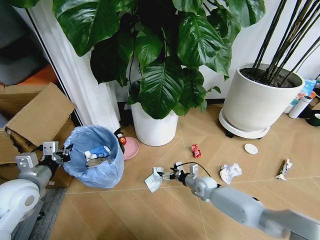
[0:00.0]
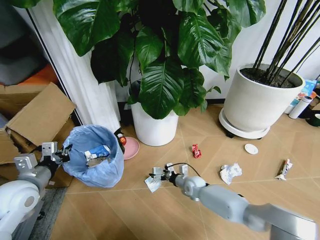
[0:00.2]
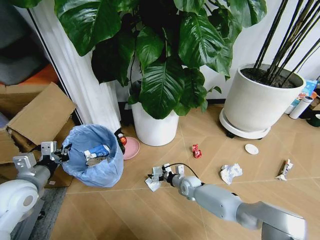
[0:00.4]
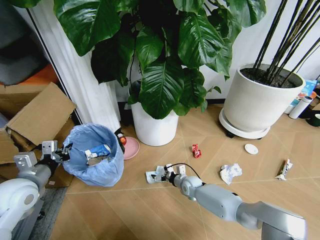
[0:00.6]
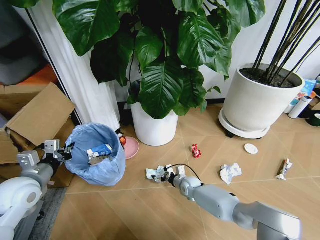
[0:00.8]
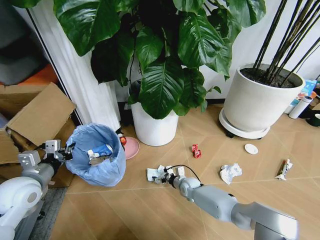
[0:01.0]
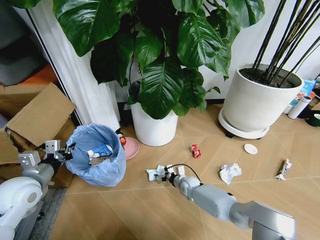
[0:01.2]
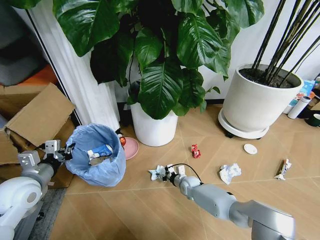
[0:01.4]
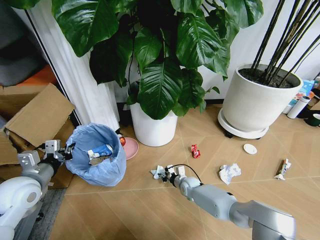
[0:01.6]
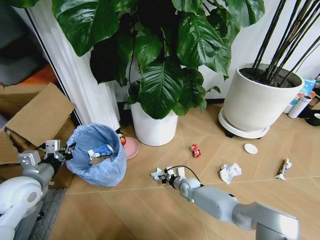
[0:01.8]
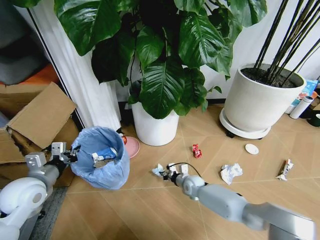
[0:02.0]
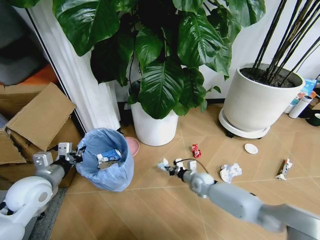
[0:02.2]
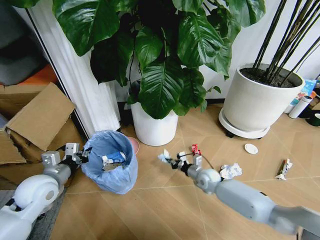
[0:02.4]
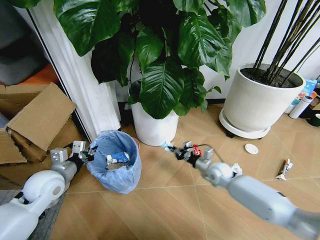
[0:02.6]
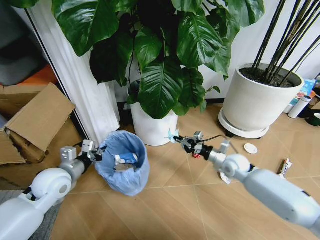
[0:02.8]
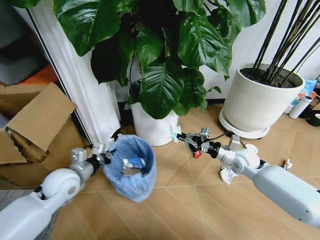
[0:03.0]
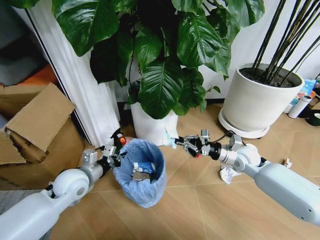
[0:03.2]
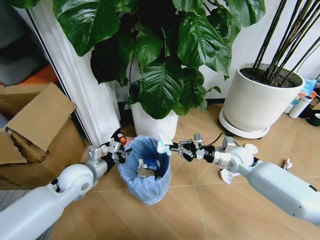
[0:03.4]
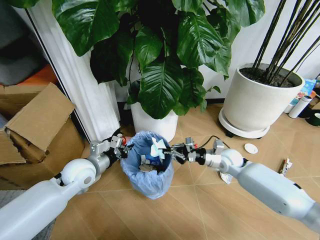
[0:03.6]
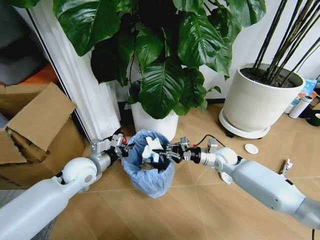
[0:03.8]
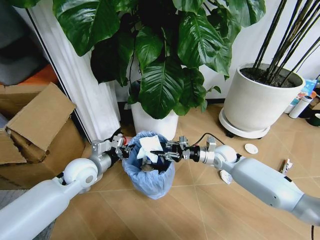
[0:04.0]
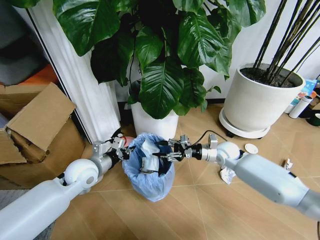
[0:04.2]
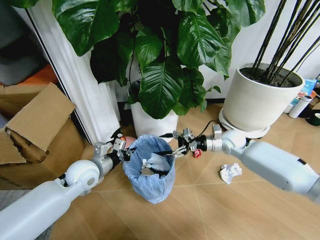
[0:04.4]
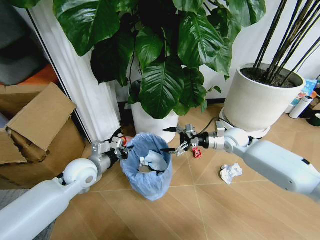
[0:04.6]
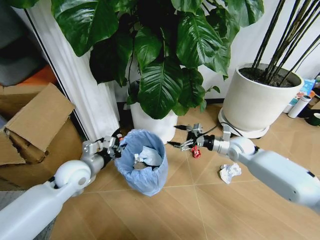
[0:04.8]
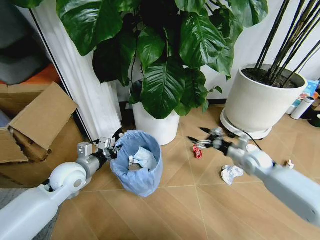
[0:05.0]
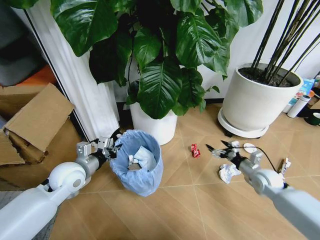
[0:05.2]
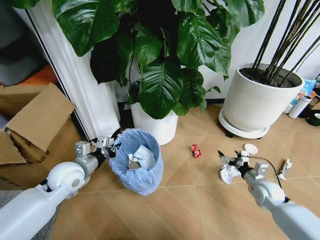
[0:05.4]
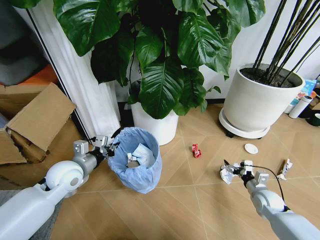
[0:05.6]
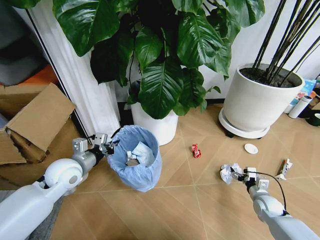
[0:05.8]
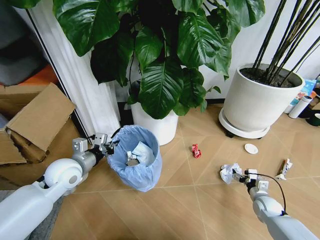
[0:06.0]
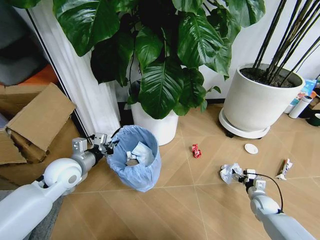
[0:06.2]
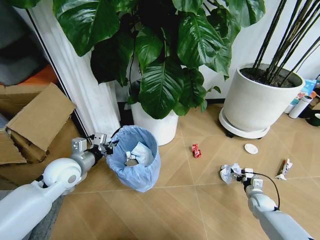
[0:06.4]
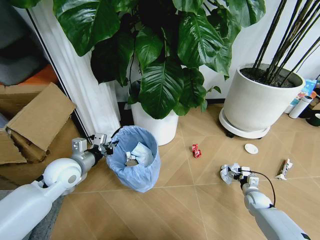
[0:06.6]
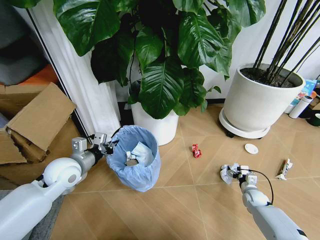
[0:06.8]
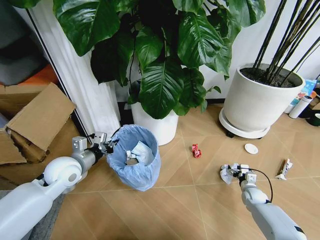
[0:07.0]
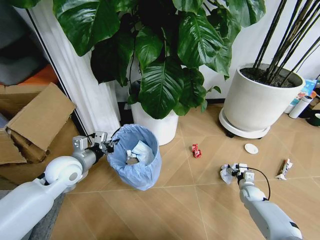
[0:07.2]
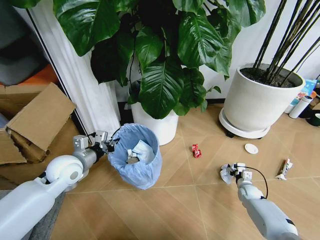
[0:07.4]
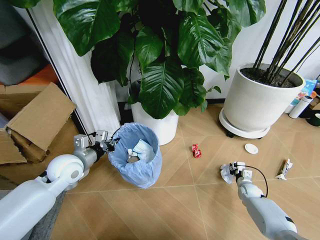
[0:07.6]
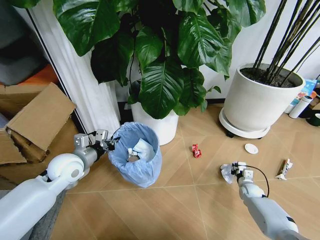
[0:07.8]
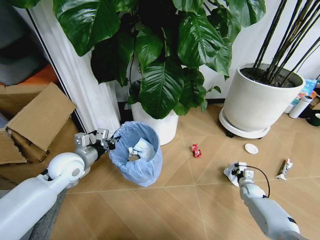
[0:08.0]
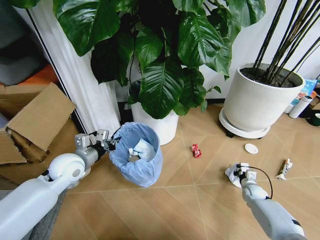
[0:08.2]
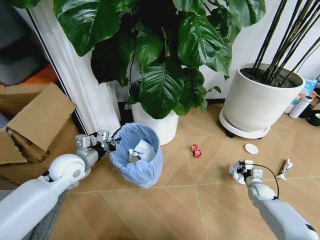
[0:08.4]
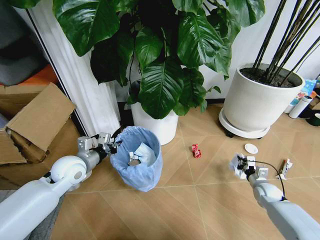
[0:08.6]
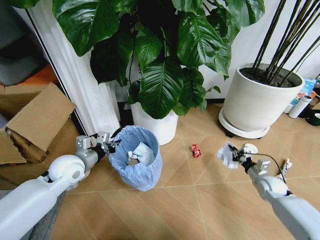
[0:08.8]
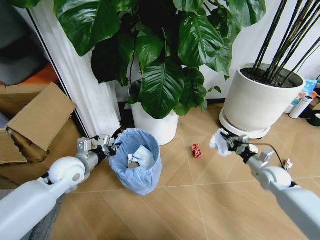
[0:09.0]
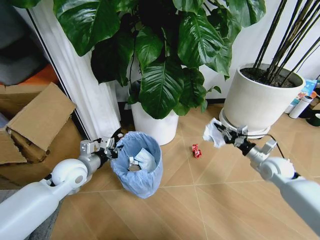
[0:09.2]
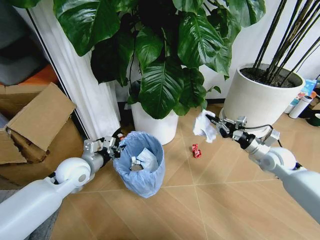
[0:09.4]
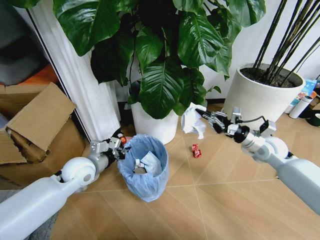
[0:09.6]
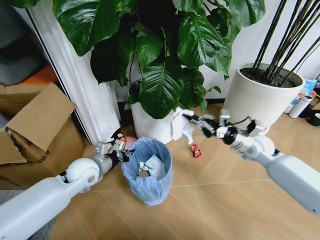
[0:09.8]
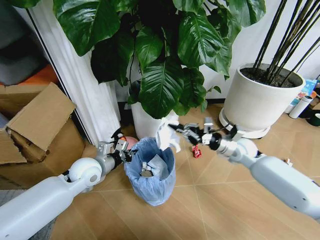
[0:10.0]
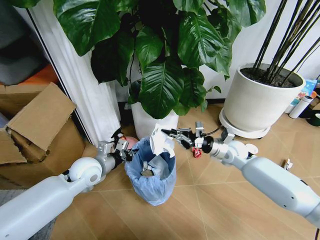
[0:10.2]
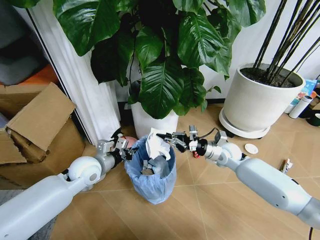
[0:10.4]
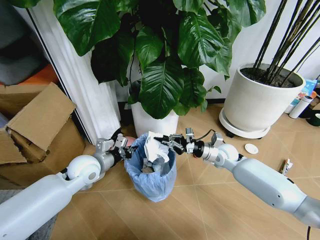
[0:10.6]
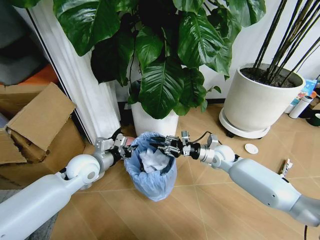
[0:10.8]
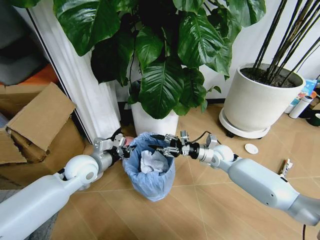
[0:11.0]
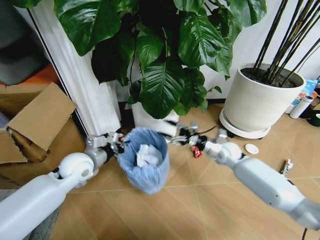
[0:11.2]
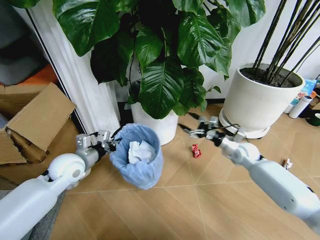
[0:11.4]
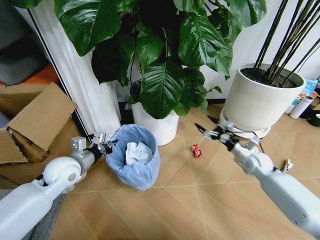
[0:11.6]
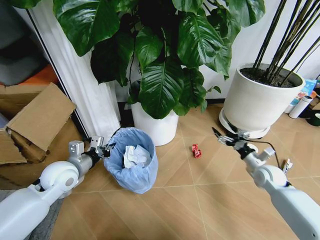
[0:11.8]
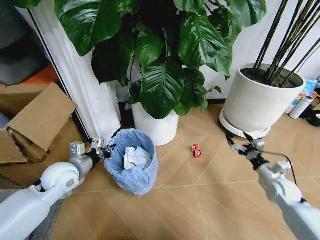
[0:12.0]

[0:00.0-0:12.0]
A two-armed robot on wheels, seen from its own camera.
Task of the whole recording: Pick up the trash bin and place the garbage on the floor into it.
0:00.0 to 0:01.6: The right gripper shifts approximately 5 cm to the left, and closes its fingers.
0:01.6 to 0:03.0: The right gripper moves upward and to the right, approximately 30 cm; the left gripper shifts roughly 10 cm to the right.
0:03.0 to 0:04.4: The left gripper heads to the right, covering roughly 5 cm. The right gripper heads forward, covering about 5 cm, and opens its fingers.
0:04.4 to 0:06.0: The right gripper goes roughly 35 cm downward, backward and to the right; the left gripper changes place by approximately 5 cm.
0:06.0 to 0:07.6: The right gripper travels forward by roughly 10 cm, and closes up.
0:07.6 to 0:09.0: The right gripper goes roughly 15 cm upward, and closes its fingers.
0:09.0 to 0:10.4: The right gripper goes approximately 20 cm to the left and forward. The left gripper ends up about 5 cm from where it was.
0:10.4 to 0:12.0: The left gripper is displaced to the left by approximately 5 cm, while the right gripper heads to the right and backward, covering approximately 25 cm, and opens up.

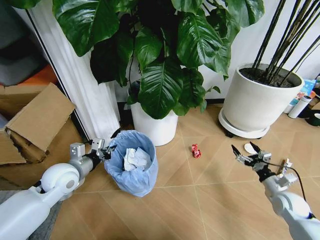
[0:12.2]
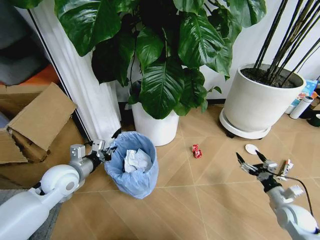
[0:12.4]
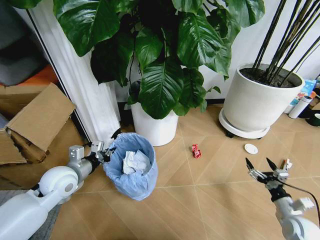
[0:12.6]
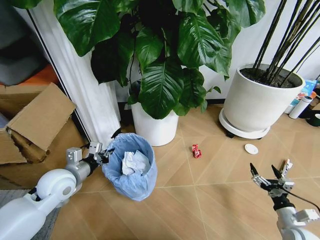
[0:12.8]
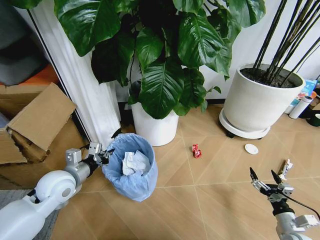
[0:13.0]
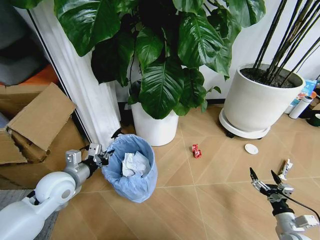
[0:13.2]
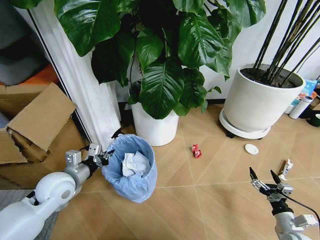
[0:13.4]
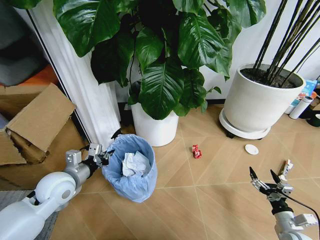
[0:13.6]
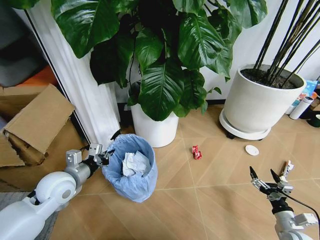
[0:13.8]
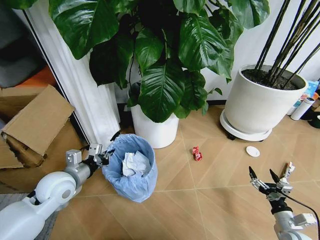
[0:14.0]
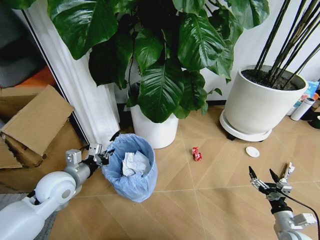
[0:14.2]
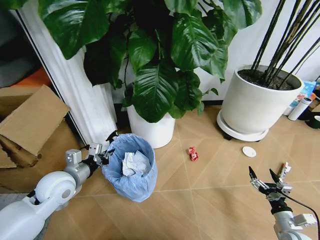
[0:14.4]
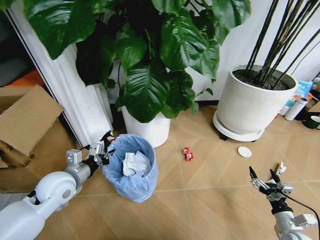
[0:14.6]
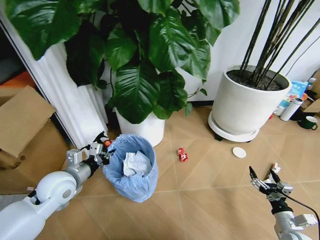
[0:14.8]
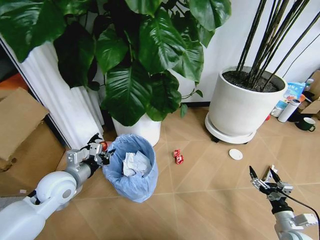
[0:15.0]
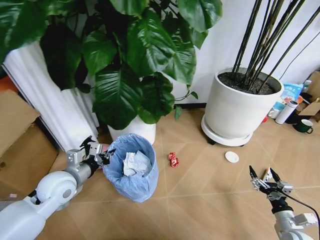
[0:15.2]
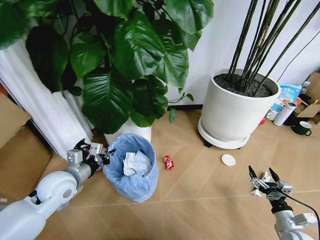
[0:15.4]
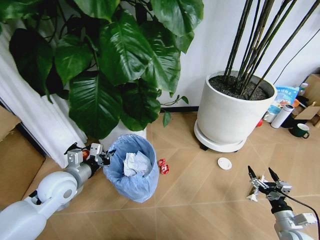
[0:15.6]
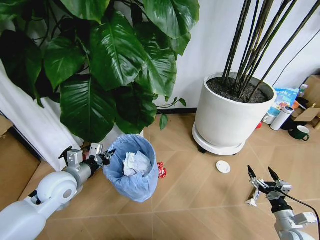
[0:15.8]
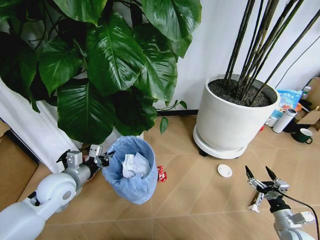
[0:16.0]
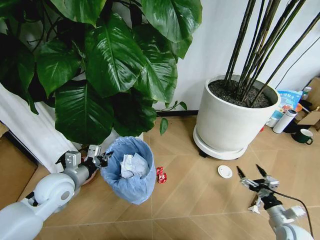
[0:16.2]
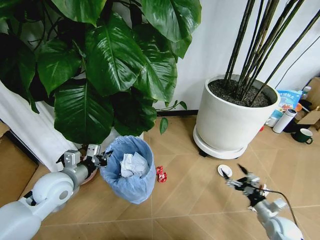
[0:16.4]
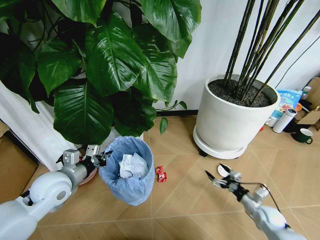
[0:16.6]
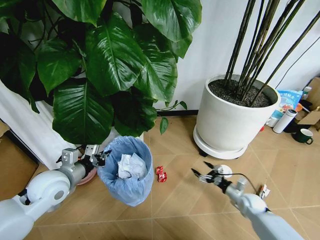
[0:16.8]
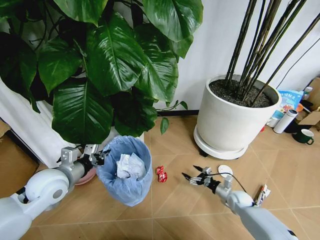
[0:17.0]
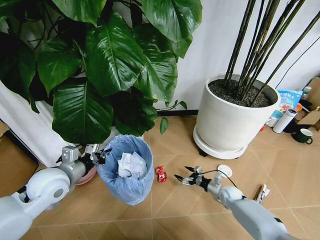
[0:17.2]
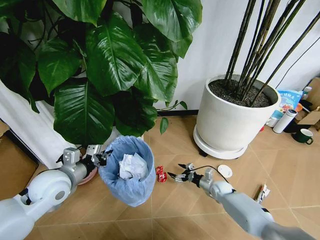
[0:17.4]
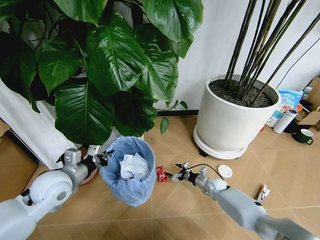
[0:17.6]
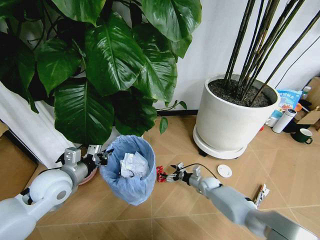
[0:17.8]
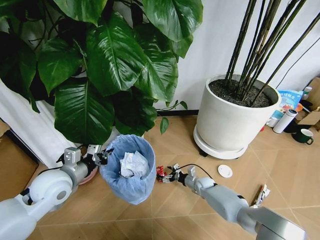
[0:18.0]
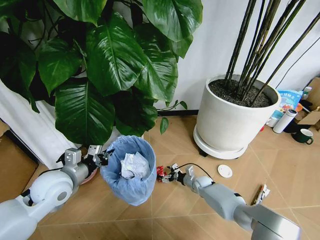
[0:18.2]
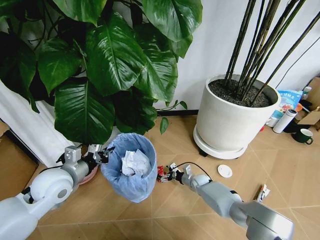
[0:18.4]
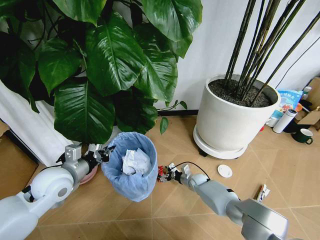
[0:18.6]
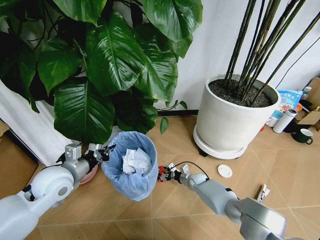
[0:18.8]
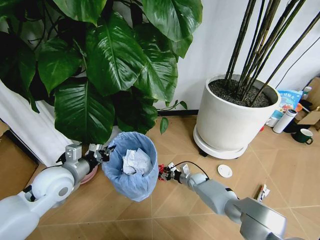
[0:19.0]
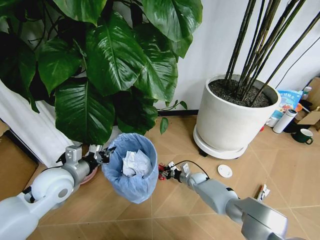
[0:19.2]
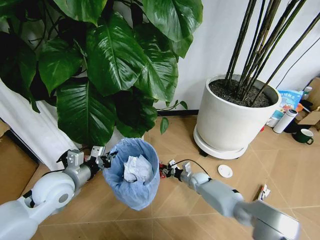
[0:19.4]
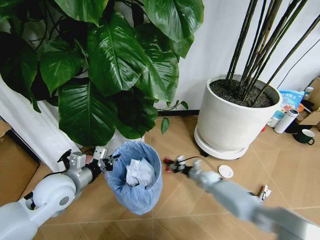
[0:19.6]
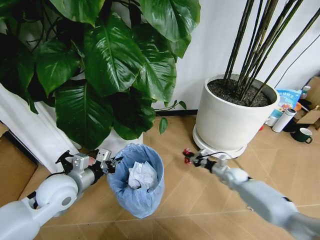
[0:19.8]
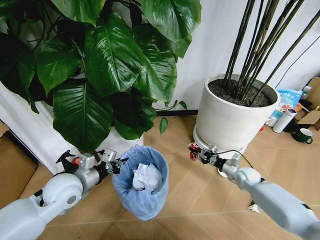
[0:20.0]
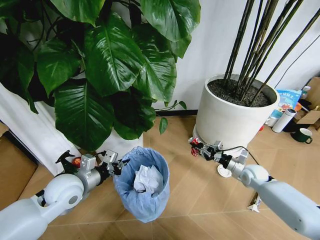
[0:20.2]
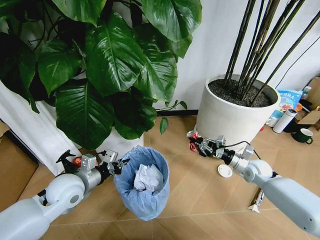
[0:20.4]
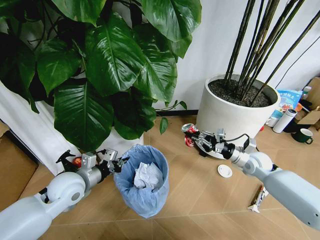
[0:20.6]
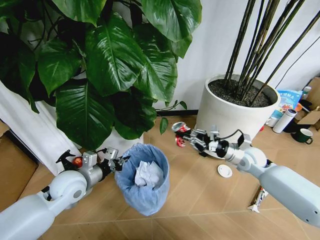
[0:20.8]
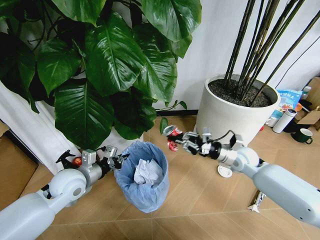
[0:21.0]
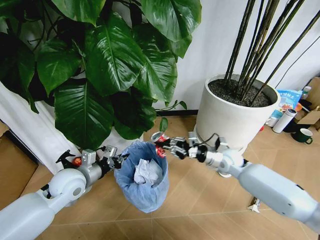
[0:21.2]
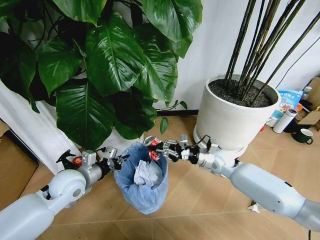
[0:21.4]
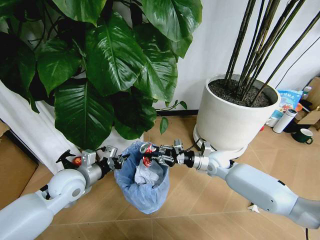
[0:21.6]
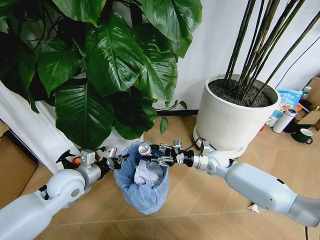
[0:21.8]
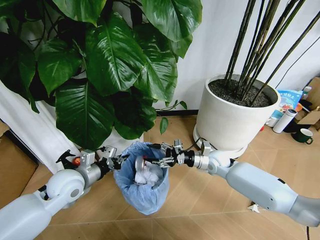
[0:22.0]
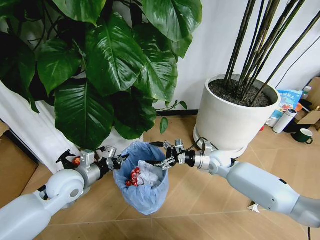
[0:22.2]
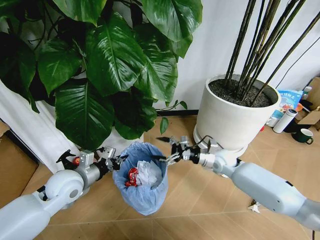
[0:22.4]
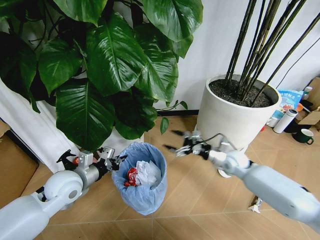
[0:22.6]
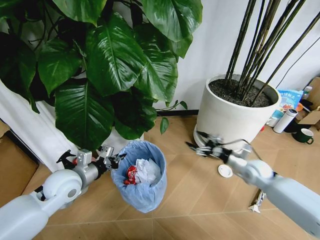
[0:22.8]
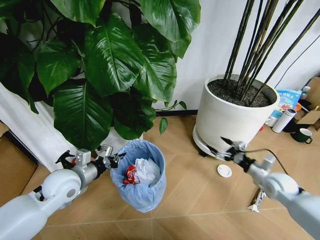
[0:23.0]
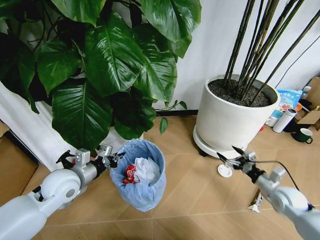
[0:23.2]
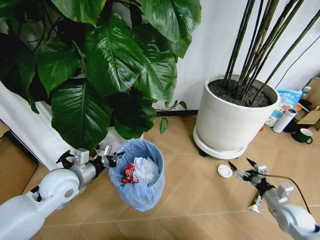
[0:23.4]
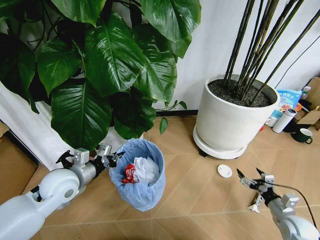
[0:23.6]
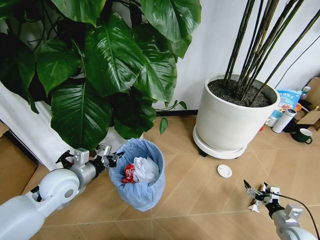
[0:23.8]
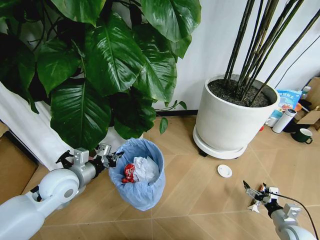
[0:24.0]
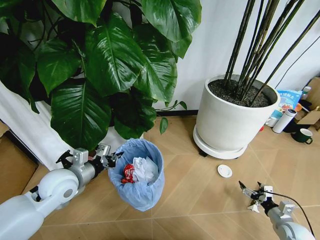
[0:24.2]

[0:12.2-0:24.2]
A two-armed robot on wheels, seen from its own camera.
Task of the whole recording: Pick up the trash bin and place the garbage on the floor into it.
0:12.2 to 0:13.8: The right gripper goes roughly 10 cm backward.
0:15.2 to 0:16.6: The right gripper heads forward, covering approximately 10 cm.
0:16.6 to 0:18.2: The right gripper travels to the left and forward by about 25 cm.
0:18.2 to 0:19.8: The right gripper is displaced to the right and upward by about 15 cm, and closes its fingers.
0:19.8 to 0:21.2: The right gripper travels upward and to the left by about 20 cm.
0:21.2 to 0:22.6: The right gripper opens up.
0:22.6 to 0:24.2: The right gripper heads backward, to the right and downward, covering roughly 35 cm.
